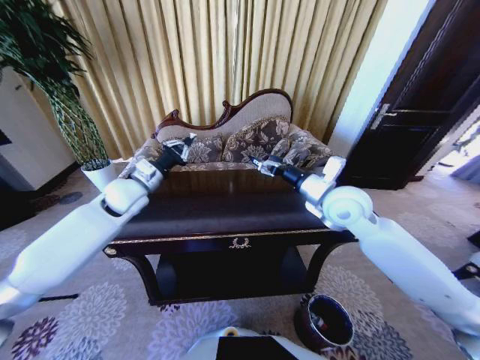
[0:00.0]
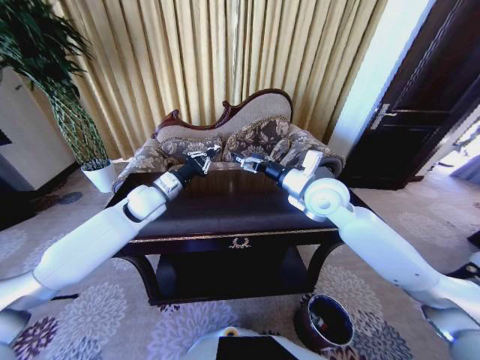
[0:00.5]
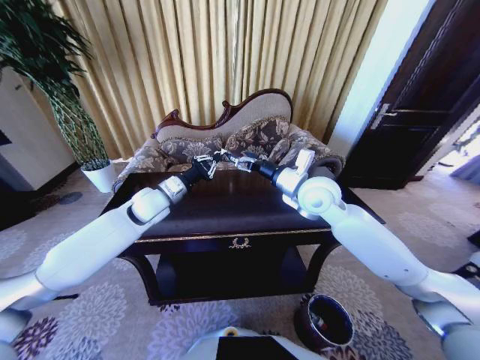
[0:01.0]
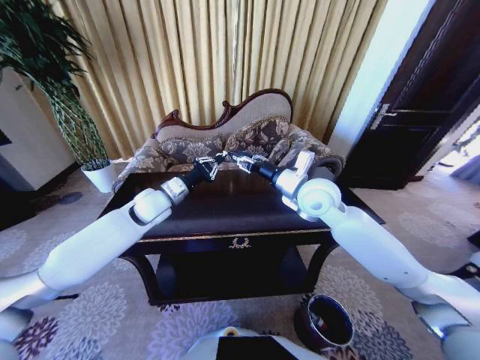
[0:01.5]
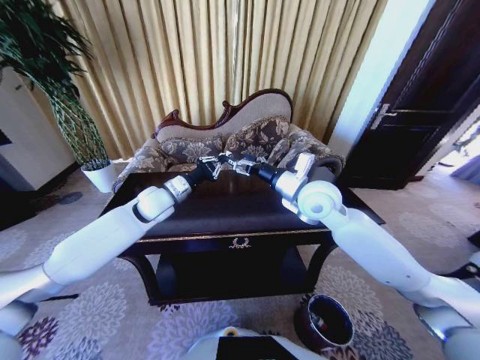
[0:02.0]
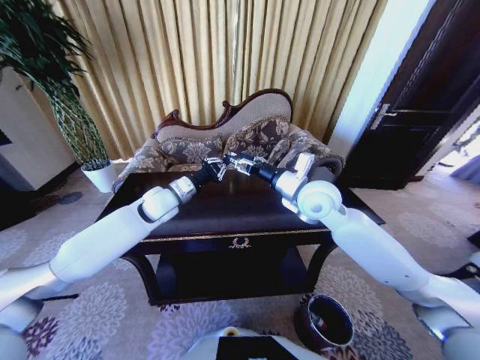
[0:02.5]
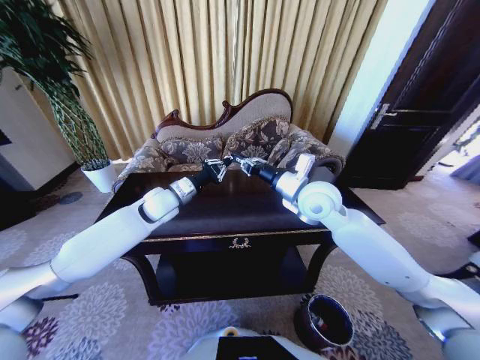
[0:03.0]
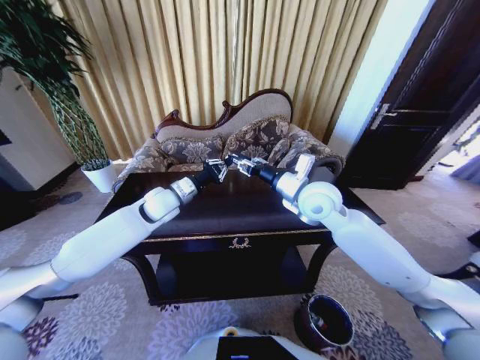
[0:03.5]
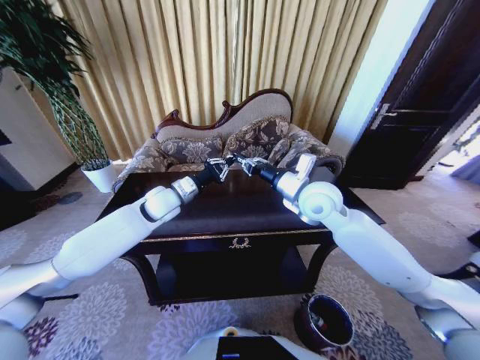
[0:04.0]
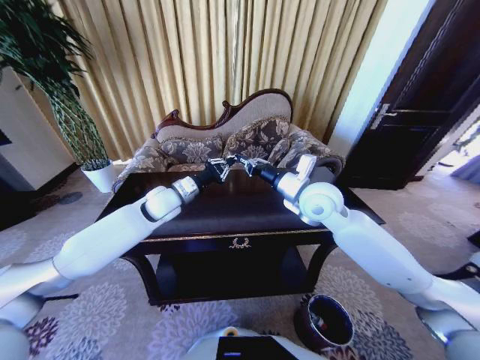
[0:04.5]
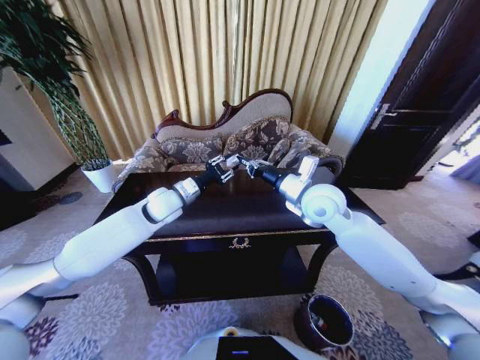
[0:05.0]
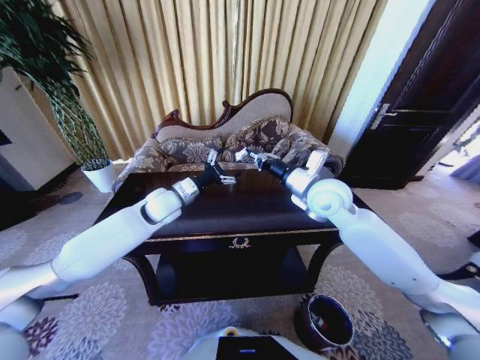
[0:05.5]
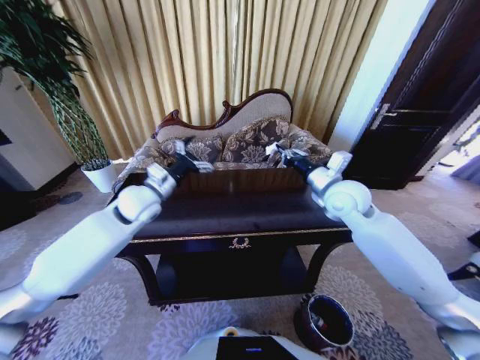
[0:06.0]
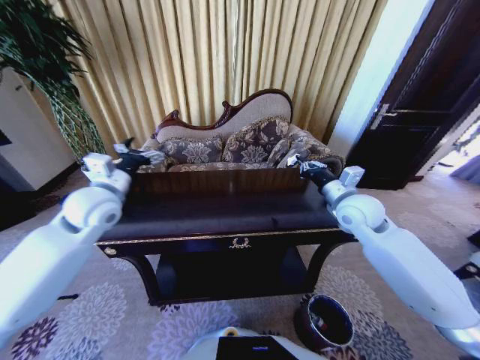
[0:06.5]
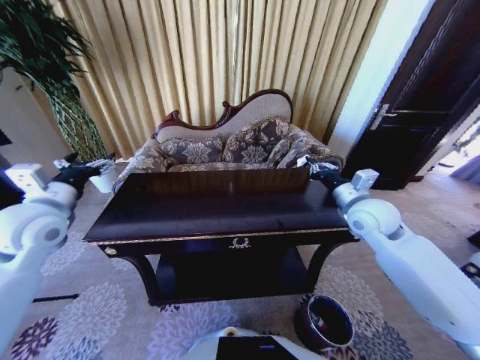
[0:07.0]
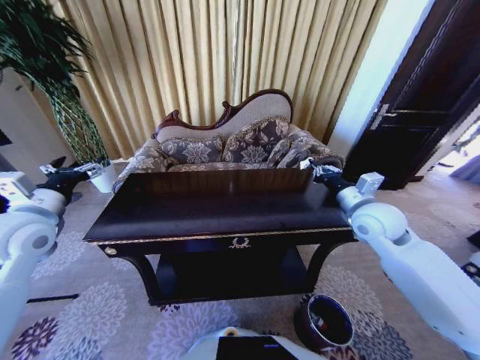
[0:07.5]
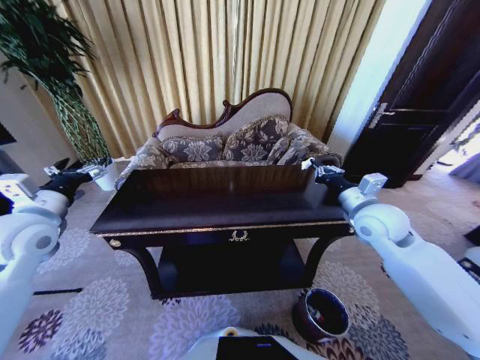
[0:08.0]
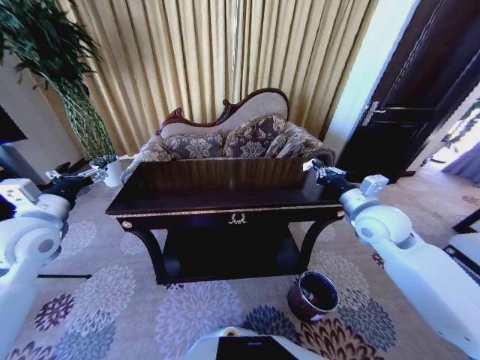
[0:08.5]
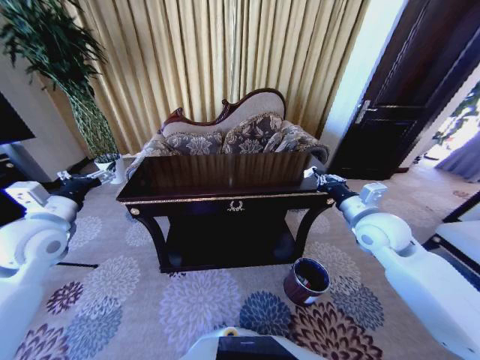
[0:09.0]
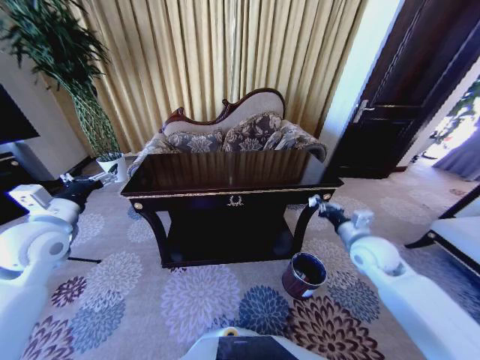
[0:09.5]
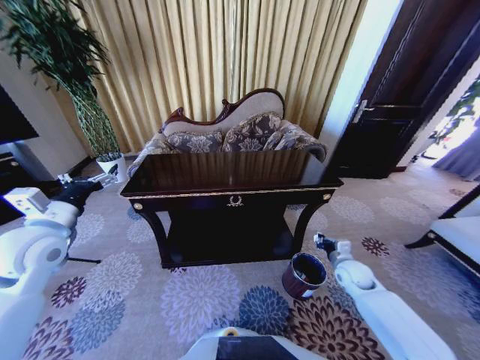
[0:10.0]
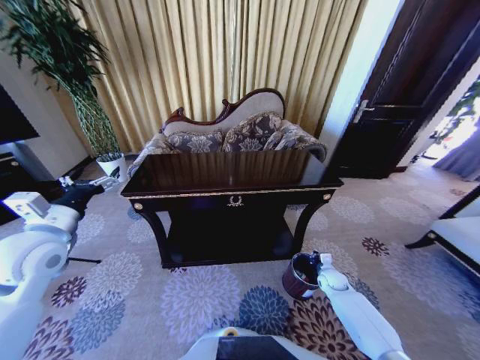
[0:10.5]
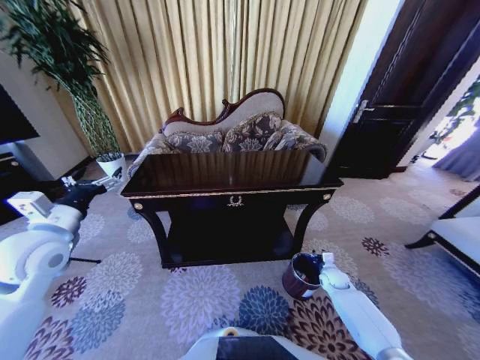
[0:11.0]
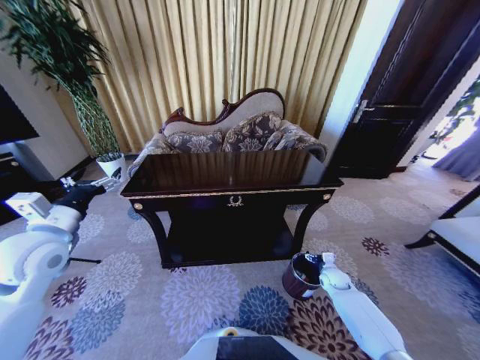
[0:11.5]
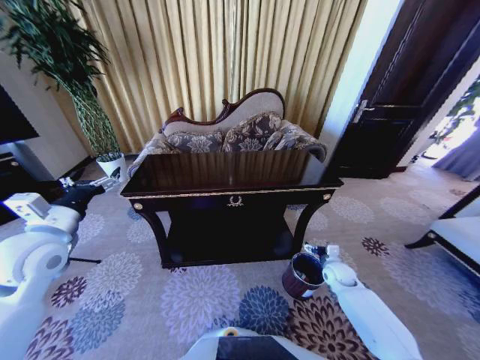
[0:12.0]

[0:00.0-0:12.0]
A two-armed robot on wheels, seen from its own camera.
Task of the whole recording: Move to the front of the table and place the trash on the table into the trash bin.
0.0 to 2.0 s: The right gripper heads to the left, covering roughly 5 cm, and closes and opens again. Meanwhile the left gripper is displaced to the right by some 5 cm.
2.0 to 4.0 s: The right gripper closes.
4.0 to 6.0 s: The right gripper is displaced to the right by some 10 cm. Meanwhile the left gripper shifts by roughly 5 cm, and opens.
6.0 to 8.0 s: The left gripper shifts about 20 cm to the left and backward. The right gripper shifts approximately 10 cm to the right and backward.
8.0 to 10.0 s: The right gripper travels downward by approximately 25 cm.
10.0 to 12.0 s: The right gripper moves downward, roughly 5 cm, and opens up.

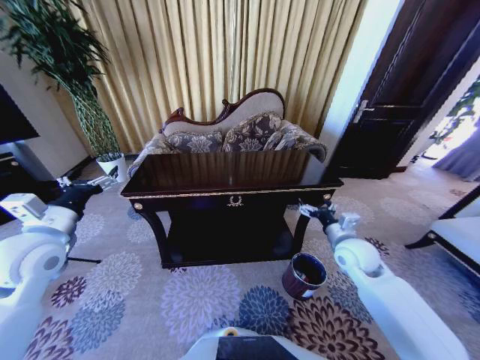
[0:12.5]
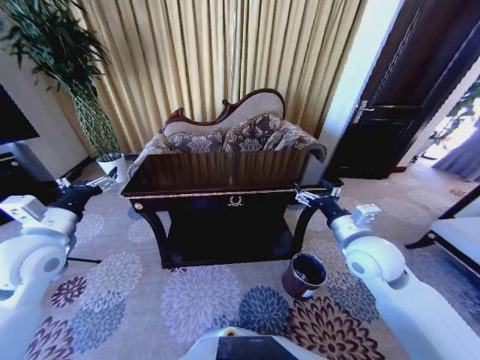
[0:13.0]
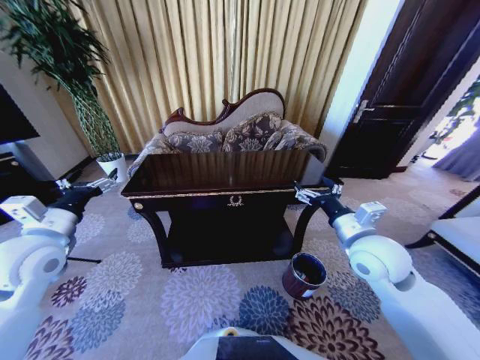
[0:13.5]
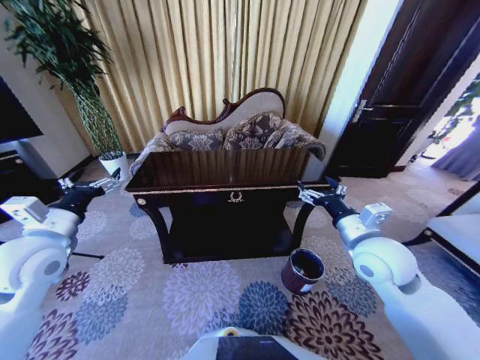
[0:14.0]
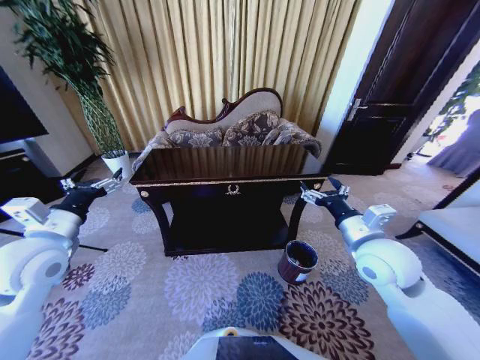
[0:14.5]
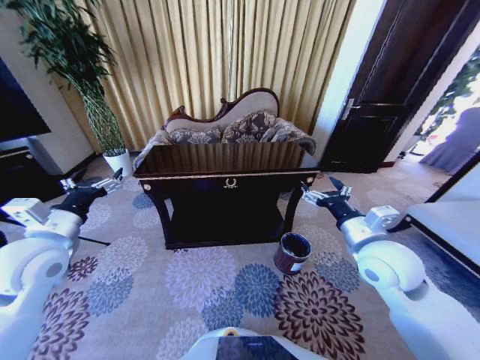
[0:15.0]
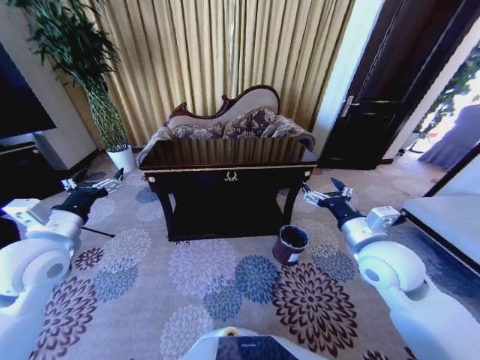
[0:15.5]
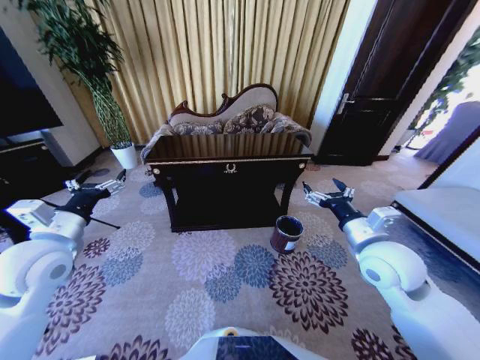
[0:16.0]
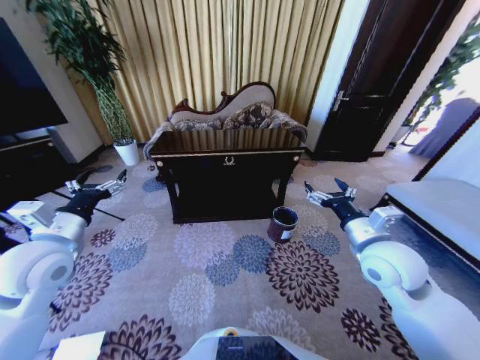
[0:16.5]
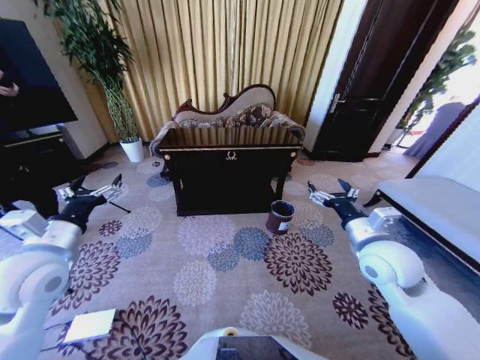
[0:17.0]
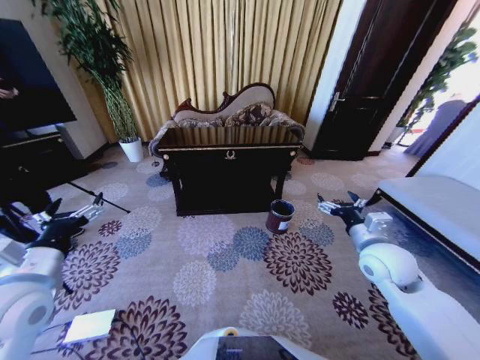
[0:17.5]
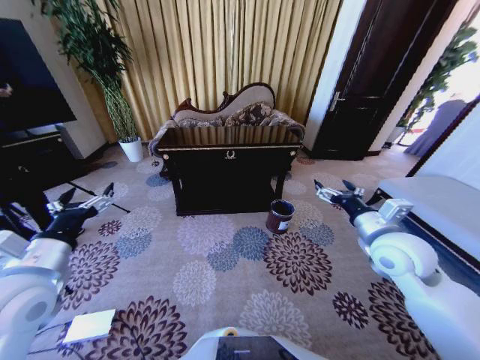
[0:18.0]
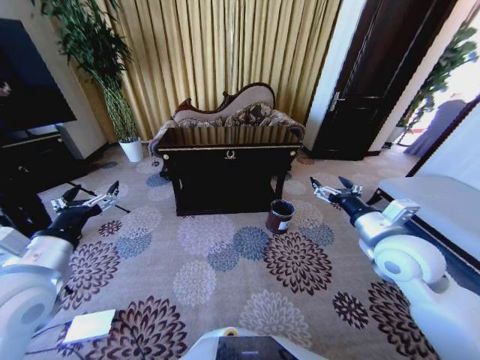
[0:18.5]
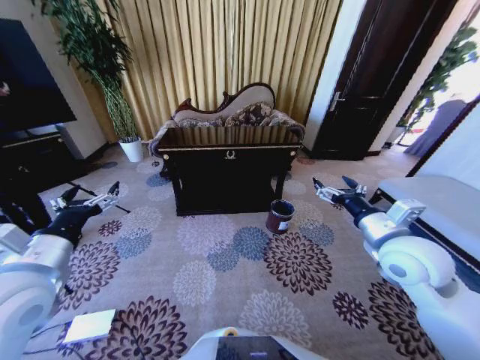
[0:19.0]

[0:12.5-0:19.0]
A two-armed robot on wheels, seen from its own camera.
Task of the whole recording: Move to the front of the table and place the trash on the table into the trash bin.
12.5 to 14.5 s: The right gripper goes roughly 10 cm upward and backward.
17.0 to 19.0 s: The left gripper shifts by some 5 cm.

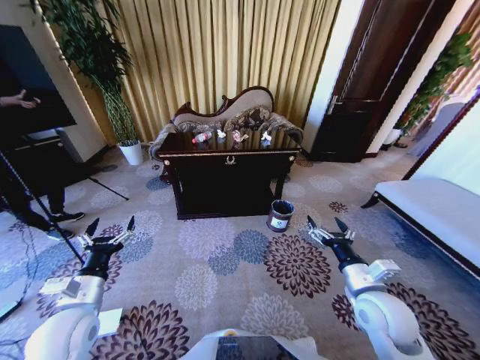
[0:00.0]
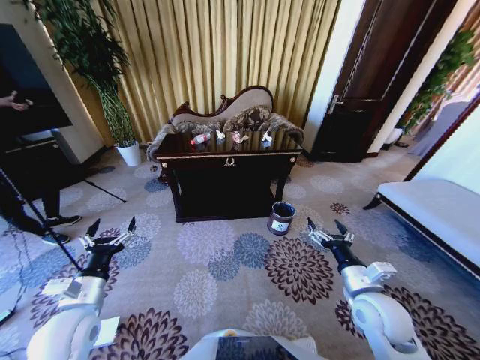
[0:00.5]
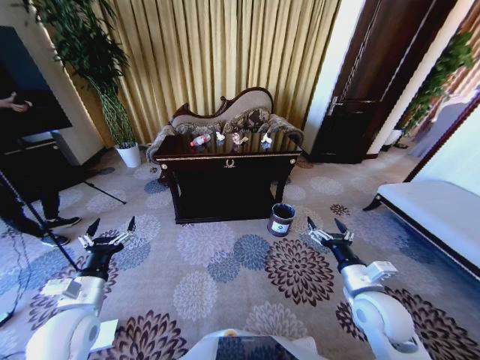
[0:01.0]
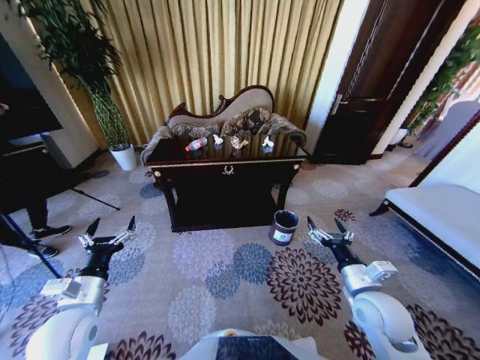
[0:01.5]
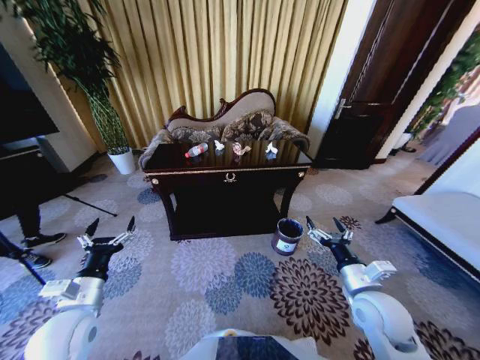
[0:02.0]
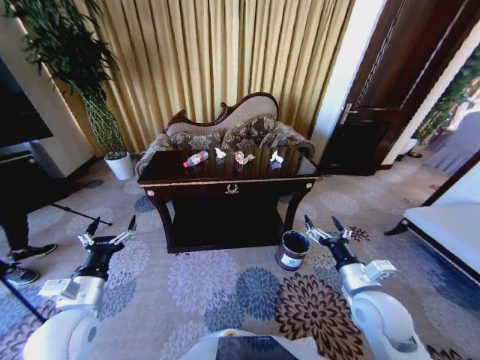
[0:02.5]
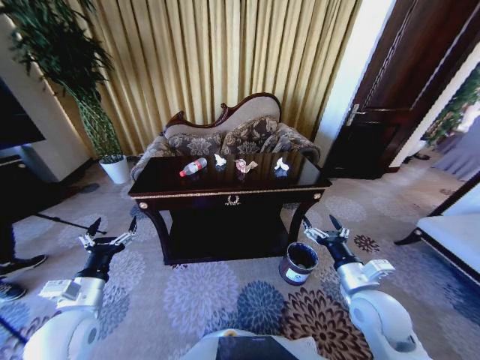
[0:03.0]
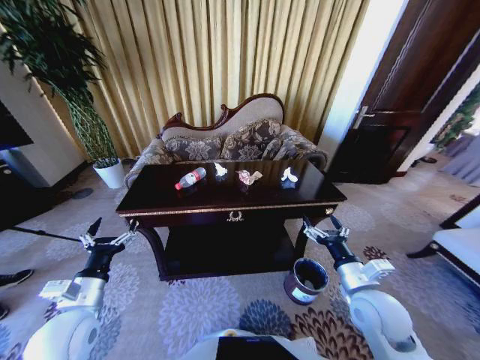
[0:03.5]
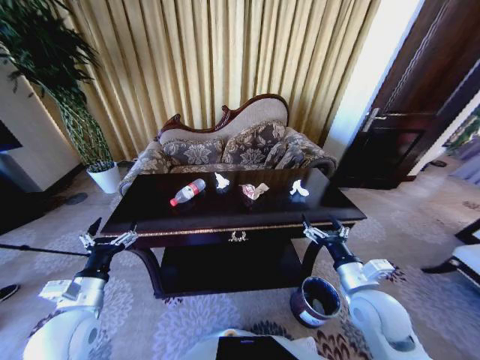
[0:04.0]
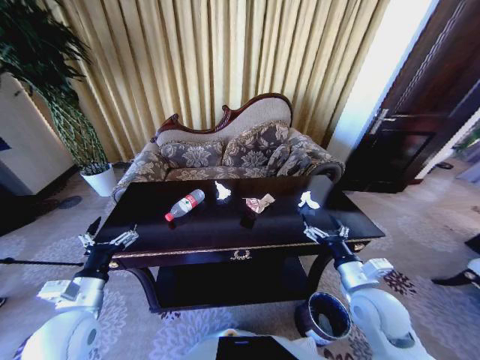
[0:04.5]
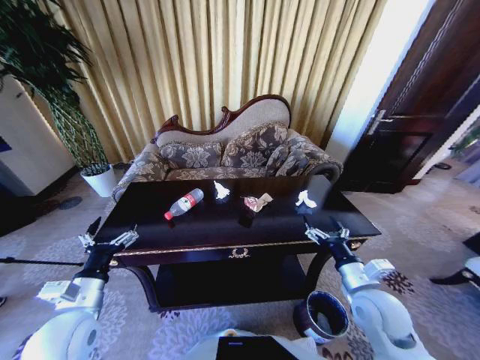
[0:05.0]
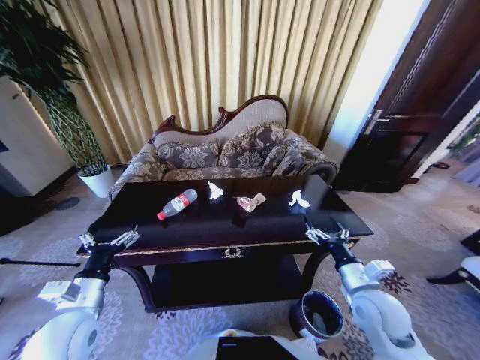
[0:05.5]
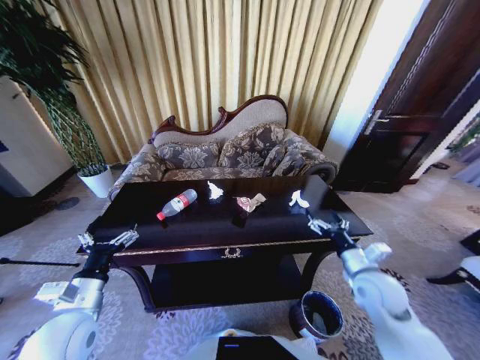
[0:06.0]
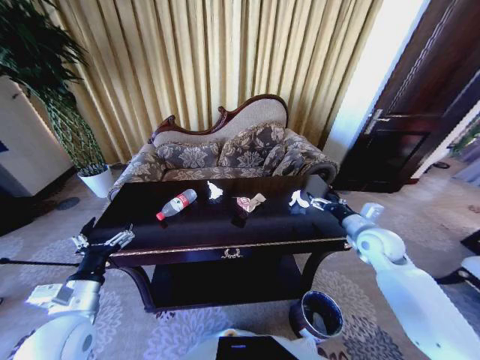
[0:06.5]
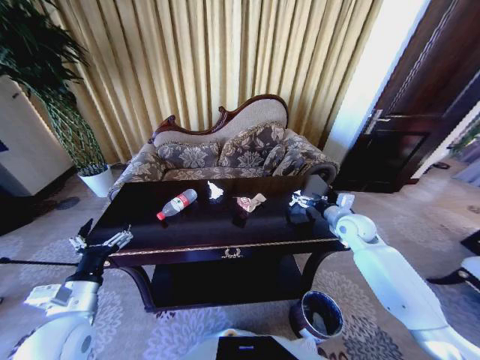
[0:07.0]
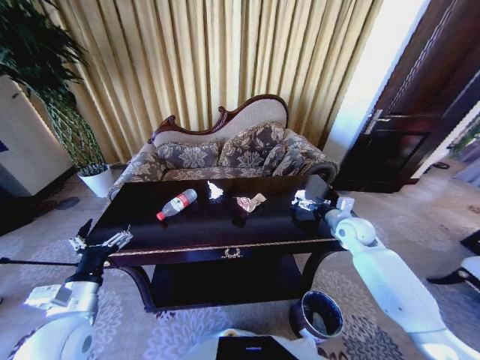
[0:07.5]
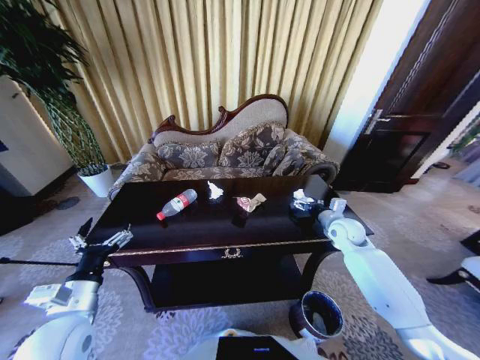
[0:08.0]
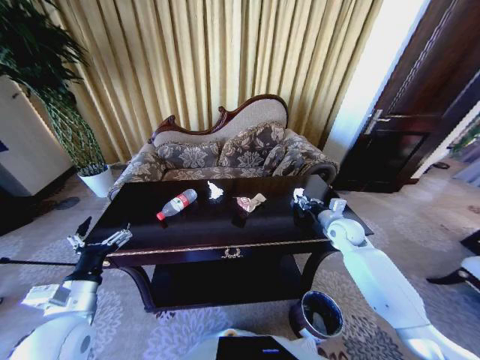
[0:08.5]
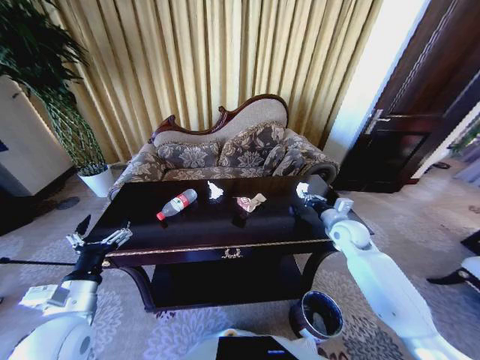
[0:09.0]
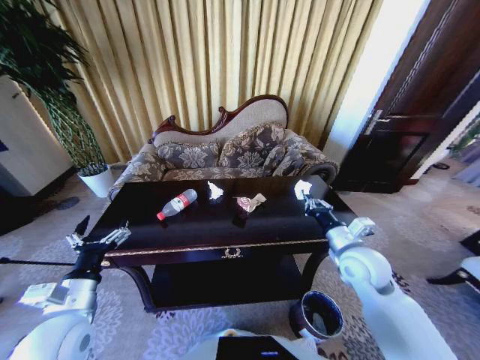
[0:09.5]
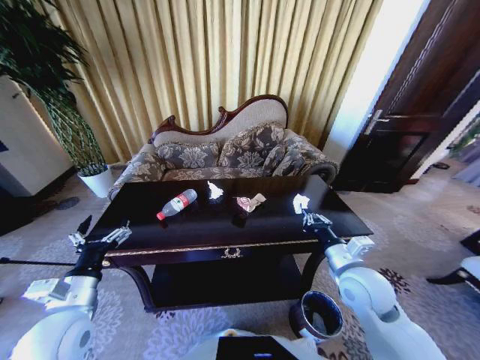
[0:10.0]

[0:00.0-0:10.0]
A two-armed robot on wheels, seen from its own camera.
Task of the whole recording: Move to the front of the table and place the trash on the table into the trash bin.
4.0 to 6.0 s: The right gripper is displaced forward and to the right by roughly 10 cm.
6.0 to 8.0 s: The right gripper moves forward, about 15 cm.
8.0 to 10.0 s: The right gripper shifts about 20 cm backward and to the left, and closes its fingers.
